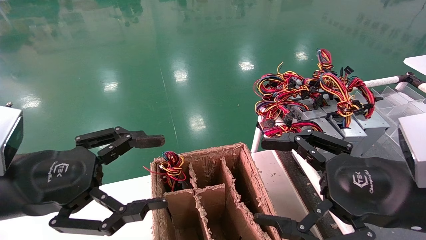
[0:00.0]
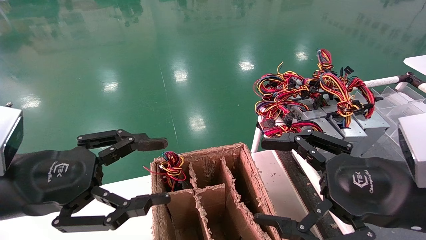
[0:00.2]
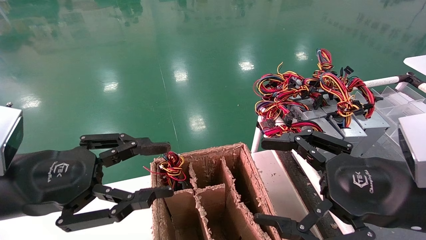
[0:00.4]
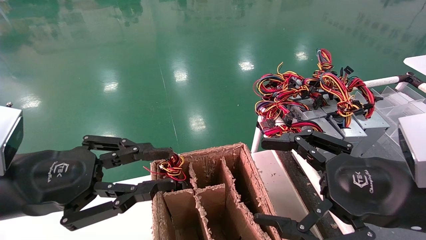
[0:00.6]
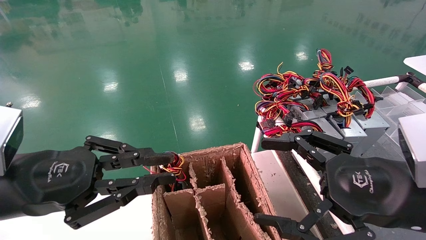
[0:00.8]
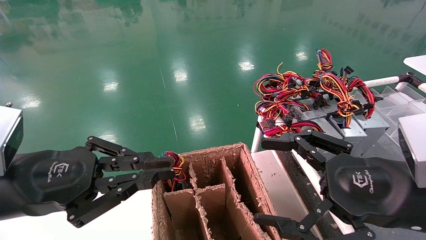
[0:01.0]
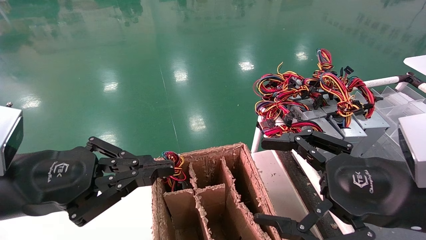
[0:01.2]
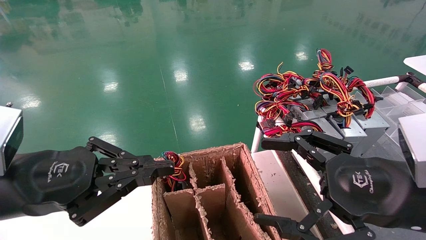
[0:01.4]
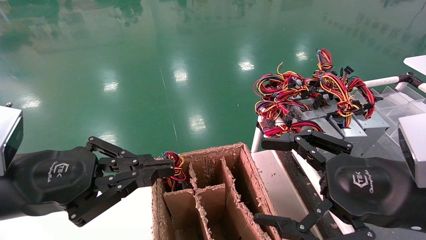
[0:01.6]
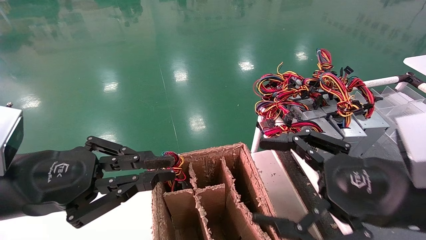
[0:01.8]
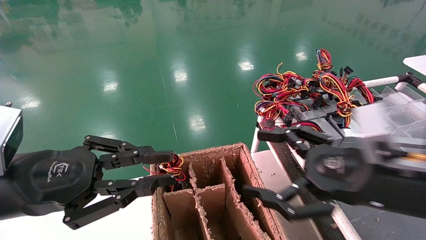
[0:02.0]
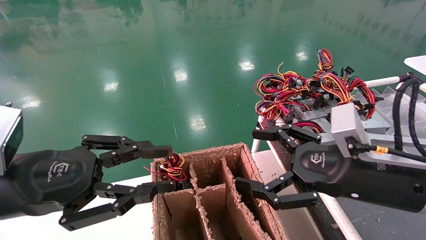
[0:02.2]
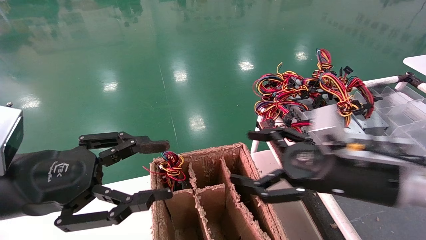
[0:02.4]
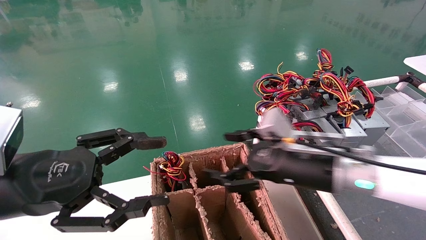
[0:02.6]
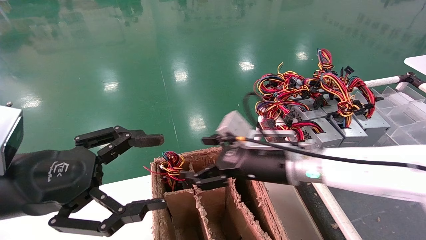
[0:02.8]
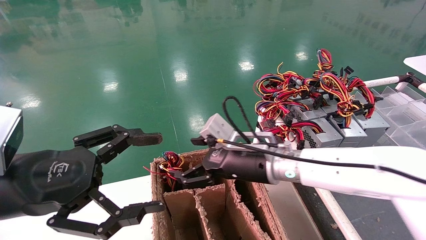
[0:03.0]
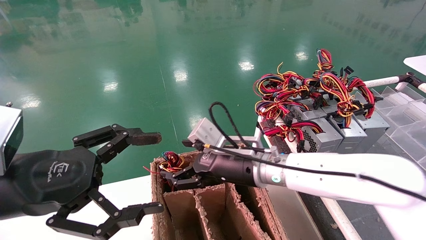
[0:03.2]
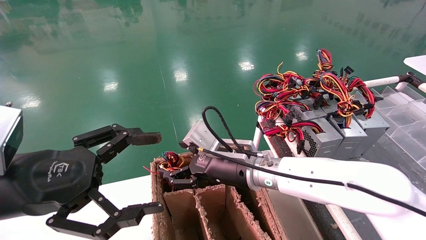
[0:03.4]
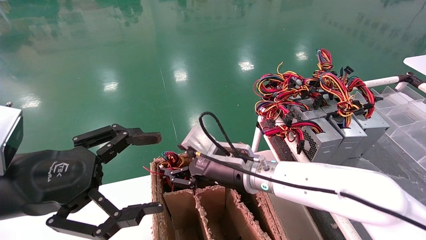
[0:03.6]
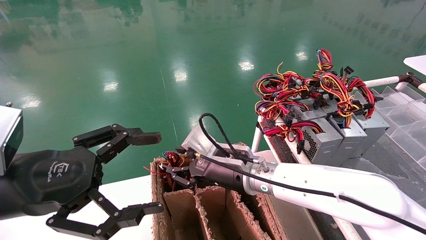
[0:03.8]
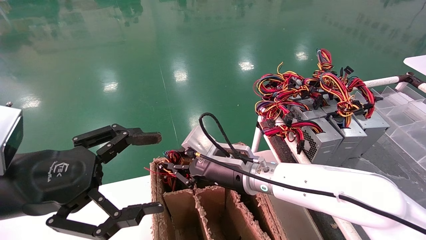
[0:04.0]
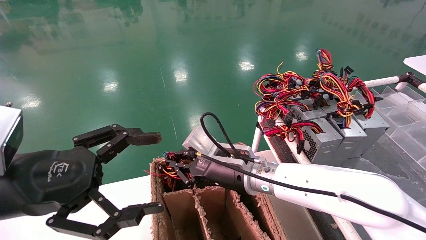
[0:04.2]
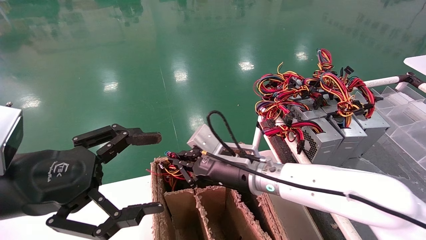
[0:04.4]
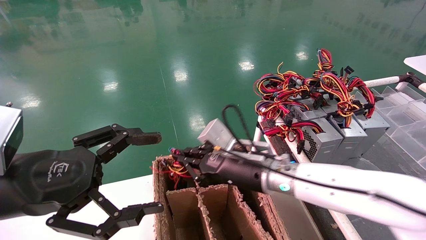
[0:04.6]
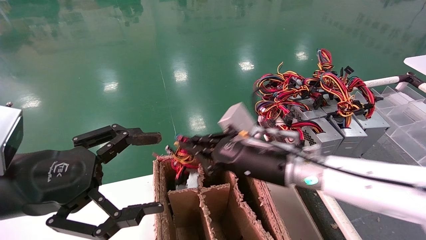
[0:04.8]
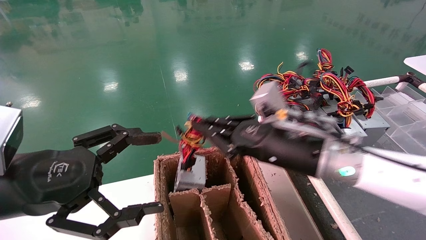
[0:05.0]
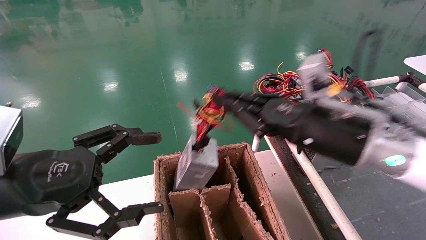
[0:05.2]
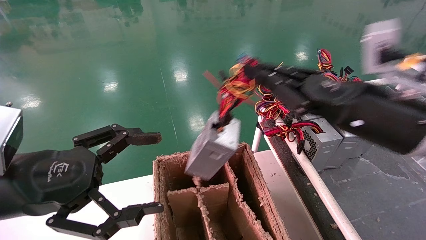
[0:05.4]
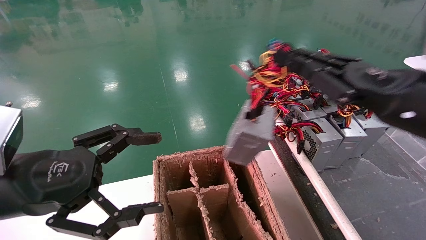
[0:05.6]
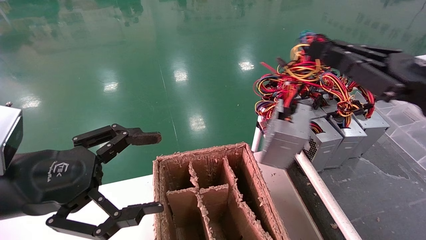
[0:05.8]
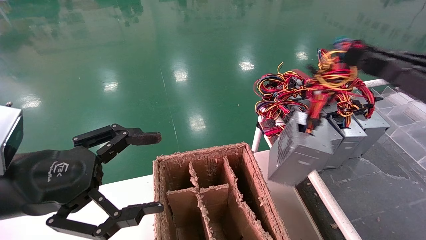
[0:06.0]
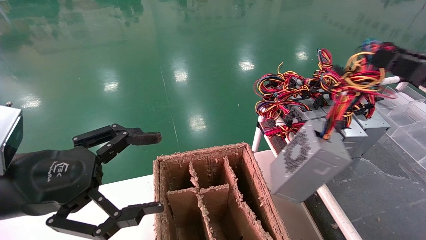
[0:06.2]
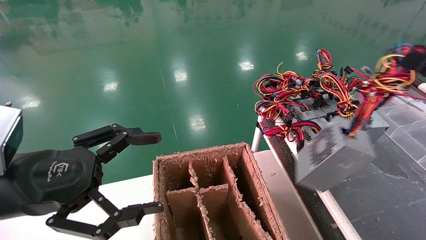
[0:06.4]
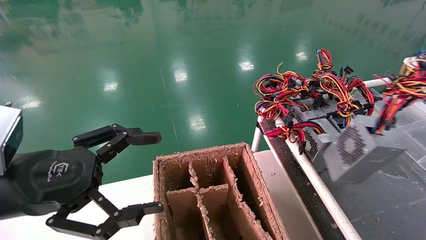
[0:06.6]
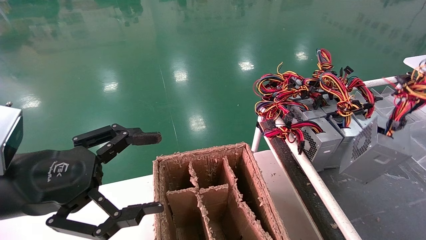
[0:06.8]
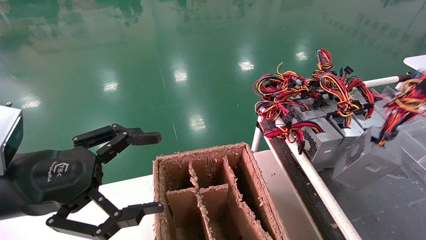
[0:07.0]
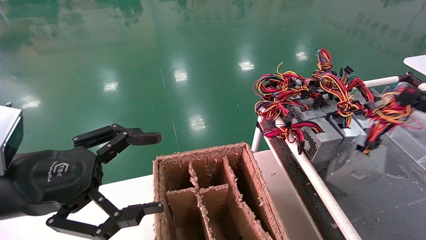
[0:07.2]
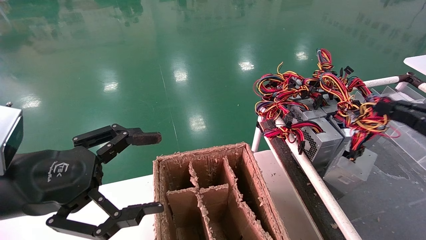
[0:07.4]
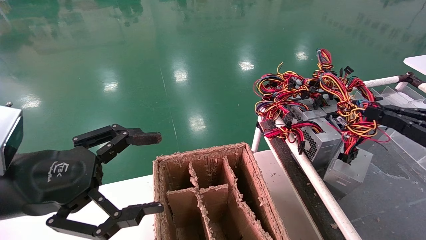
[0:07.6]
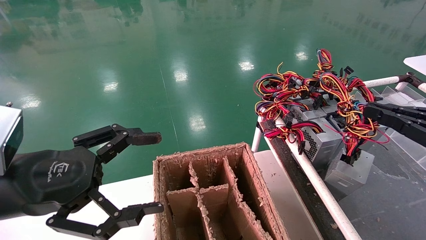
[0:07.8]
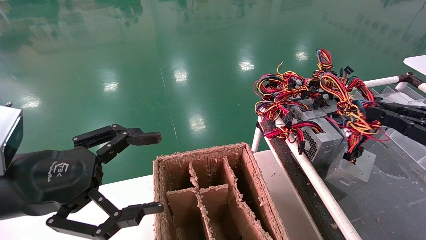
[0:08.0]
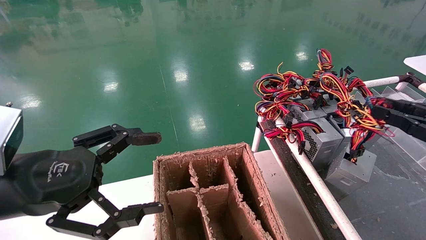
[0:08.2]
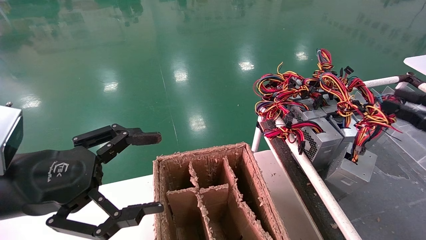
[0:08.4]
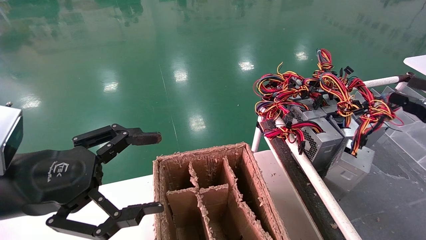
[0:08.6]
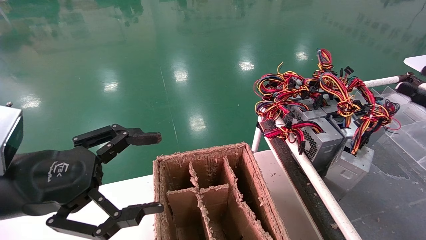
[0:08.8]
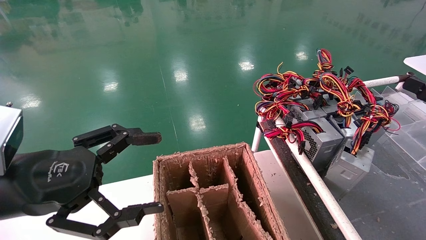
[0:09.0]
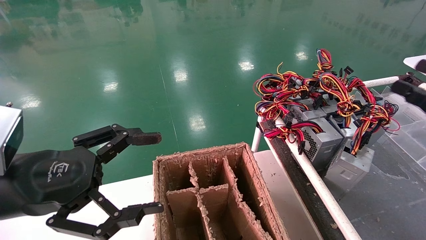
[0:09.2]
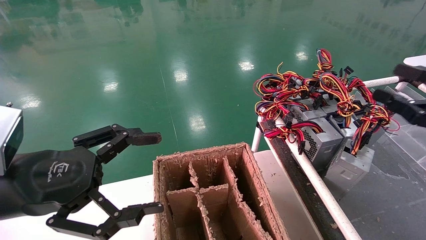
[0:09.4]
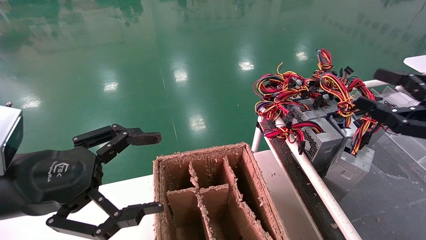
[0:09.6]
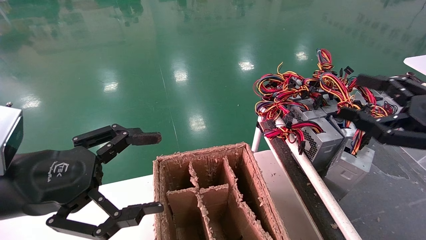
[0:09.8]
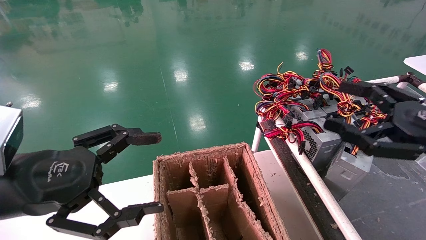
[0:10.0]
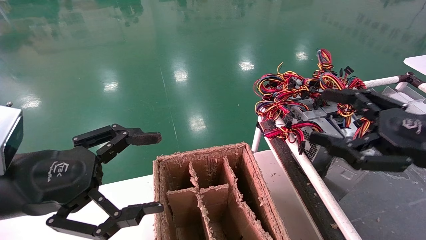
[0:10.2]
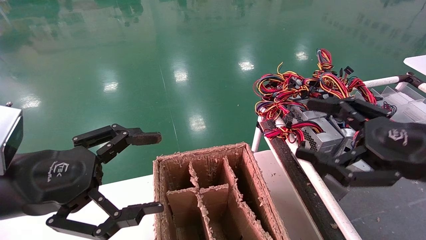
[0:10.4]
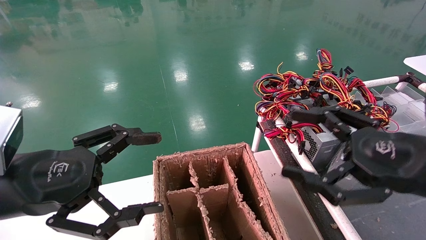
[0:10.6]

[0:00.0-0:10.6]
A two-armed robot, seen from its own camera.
Step, 0:01.2 to 0:04.2: Grab and lift the power supply from the large box.
Step, 0:04.4 to 0:07.8: Place the power supply on the operating table.
0:00.0 to 0:01.6: The left gripper closes up.
0:01.6 to 0:03.0: The left gripper opens up, while the right gripper goes approximately 25 cm to the left and forward.
0:03.0 to 0:04.6: The right gripper closes up.
0:04.6 to 0:06.0: The right gripper heads to the right, upward and backward, covering approximately 35 cm.
0:06.0 to 0:07.6: The right gripper heads to the right and downward, covering about 10 cm.
0:07.6 to 0:09.0: The right gripper opens.
0:09.0 to 0:10.6: The right gripper is displaced to the left by some 15 cm.
